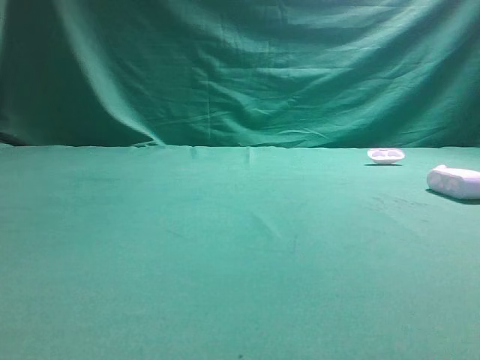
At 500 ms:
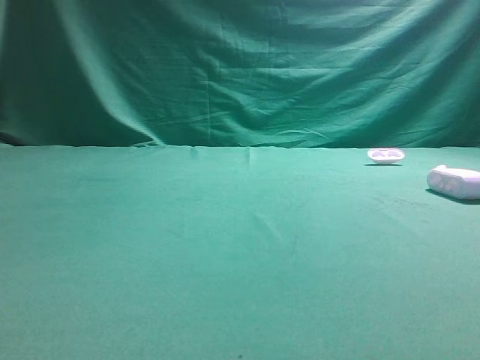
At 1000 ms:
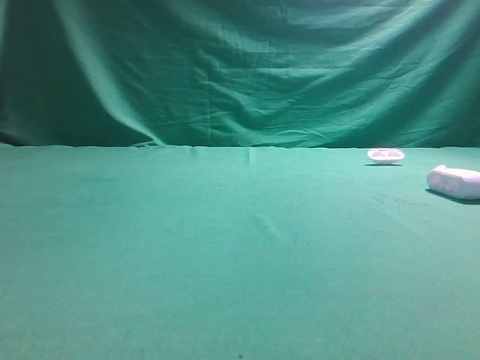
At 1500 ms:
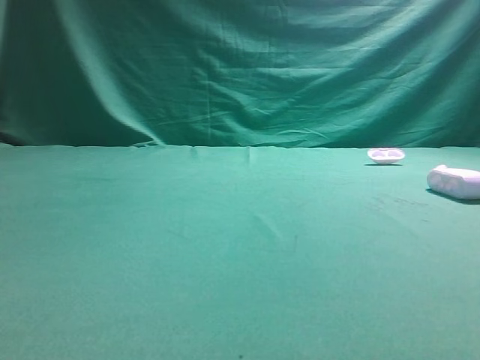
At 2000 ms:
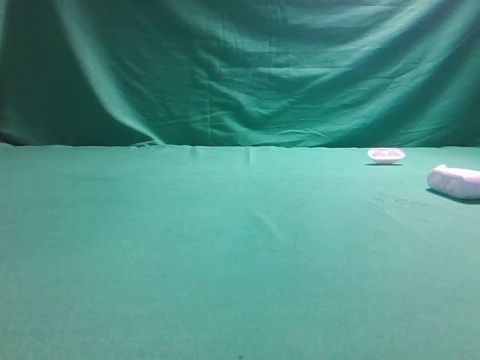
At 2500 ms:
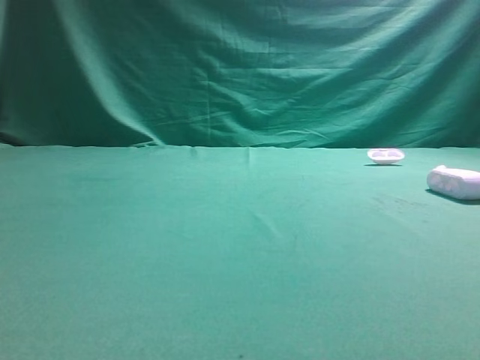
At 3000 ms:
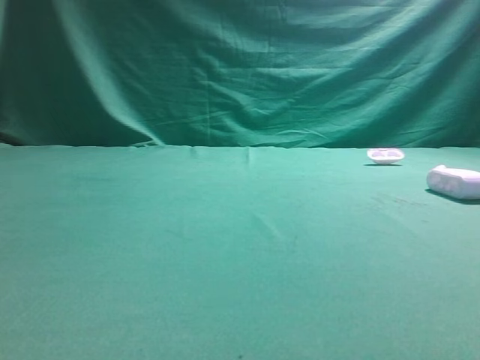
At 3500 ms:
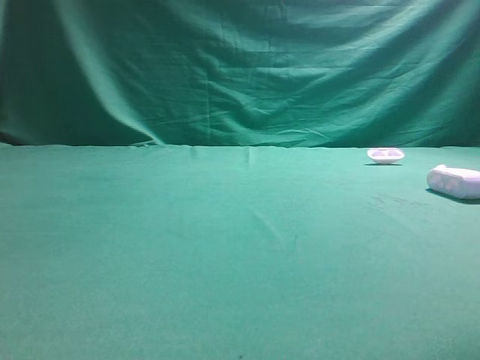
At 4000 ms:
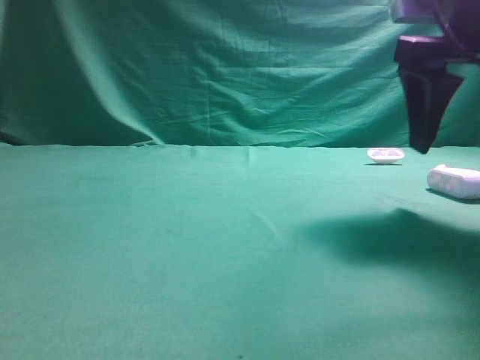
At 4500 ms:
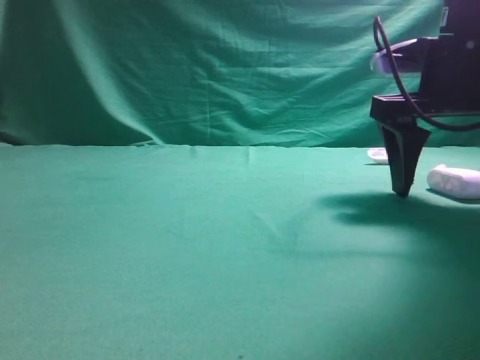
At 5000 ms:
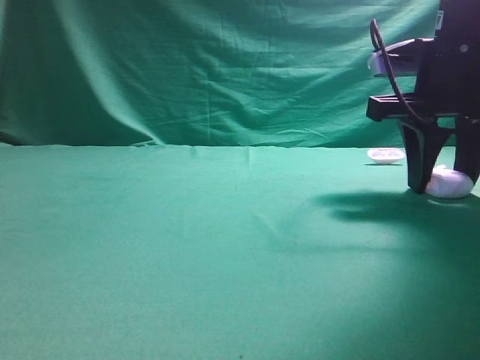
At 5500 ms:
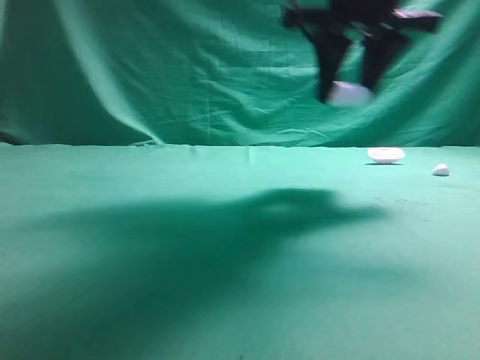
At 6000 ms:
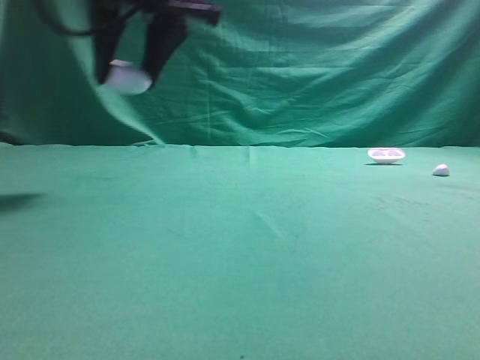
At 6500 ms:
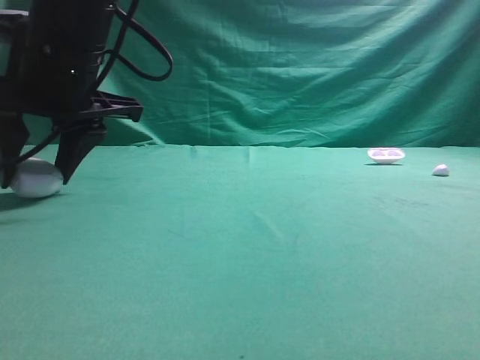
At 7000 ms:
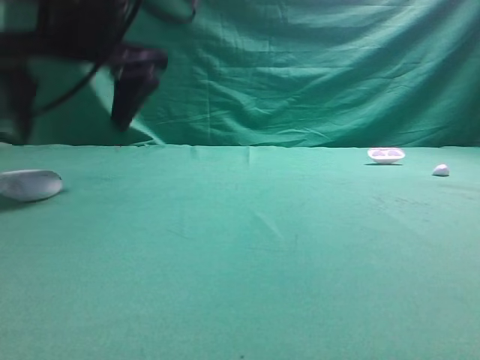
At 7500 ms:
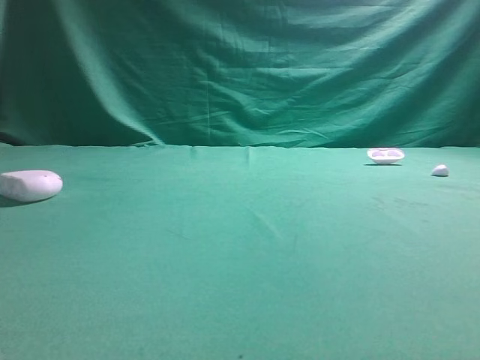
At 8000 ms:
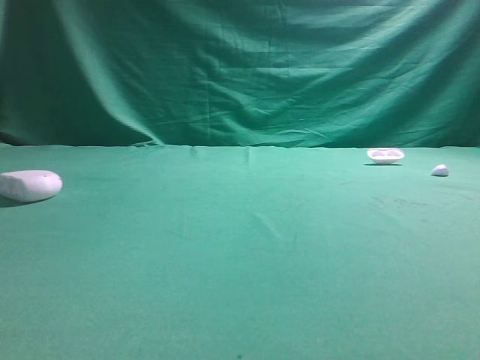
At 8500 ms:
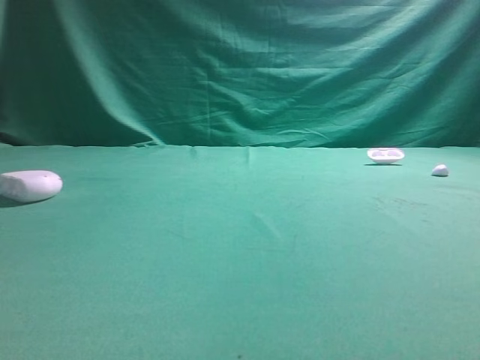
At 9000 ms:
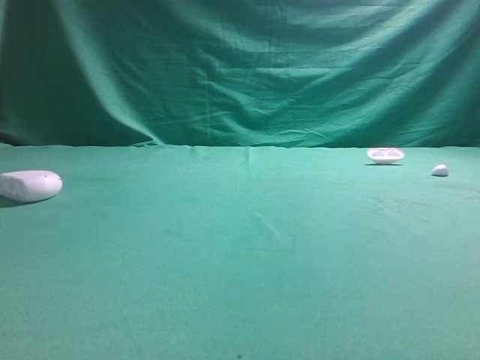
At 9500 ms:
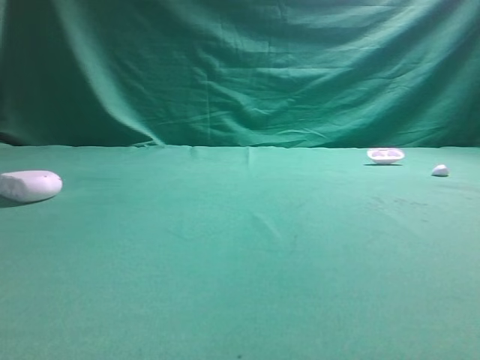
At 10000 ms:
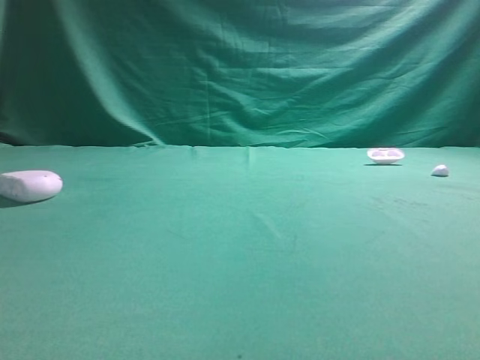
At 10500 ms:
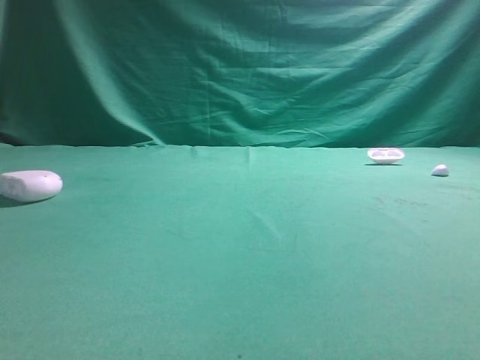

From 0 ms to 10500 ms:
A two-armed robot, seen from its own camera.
Step, from 0 ms to 5000 ms: Grasp the Bluetooth earphone case.
Step, from 5500 ms to 7000 ms: Place bluetooth earphone case on the left side of the table.

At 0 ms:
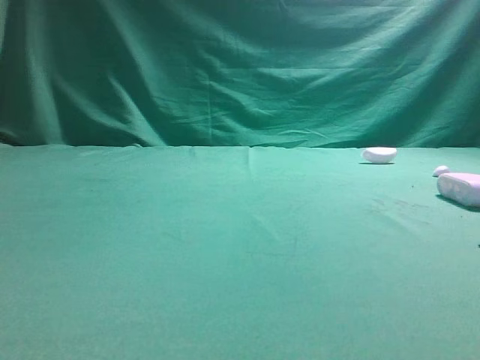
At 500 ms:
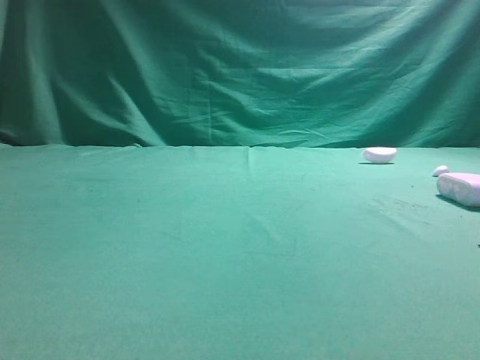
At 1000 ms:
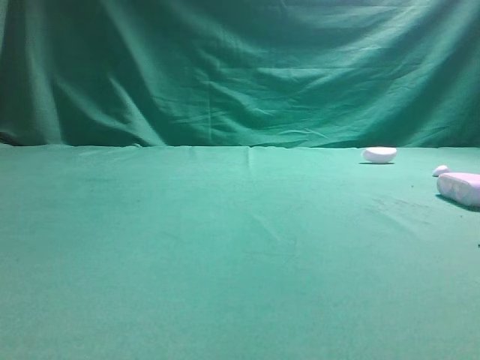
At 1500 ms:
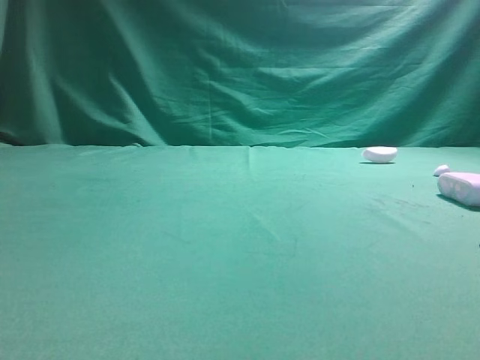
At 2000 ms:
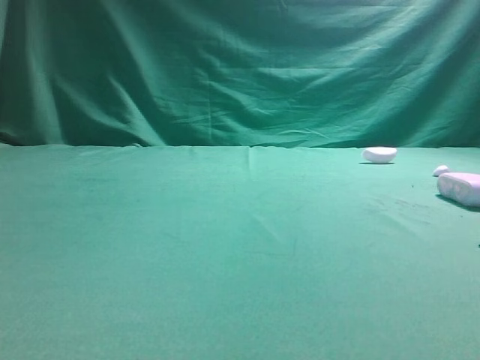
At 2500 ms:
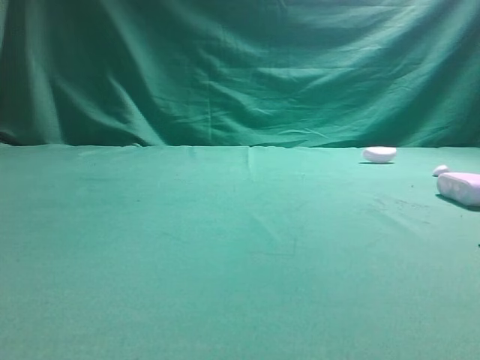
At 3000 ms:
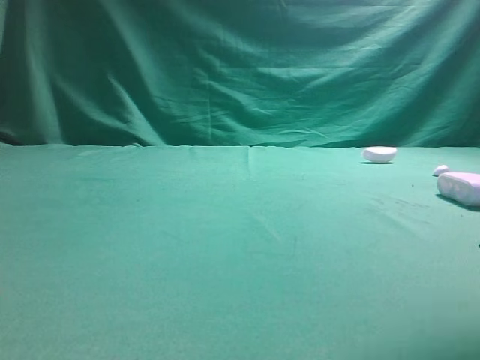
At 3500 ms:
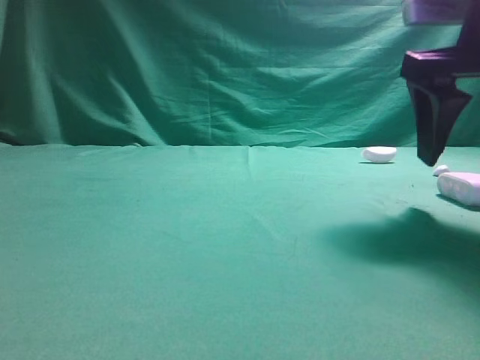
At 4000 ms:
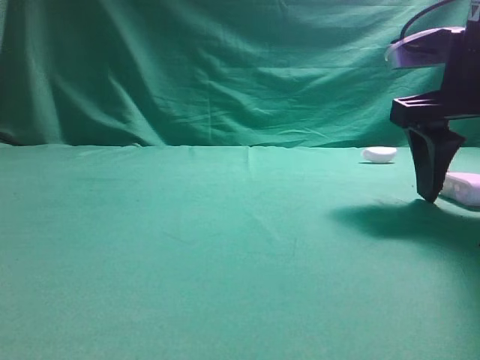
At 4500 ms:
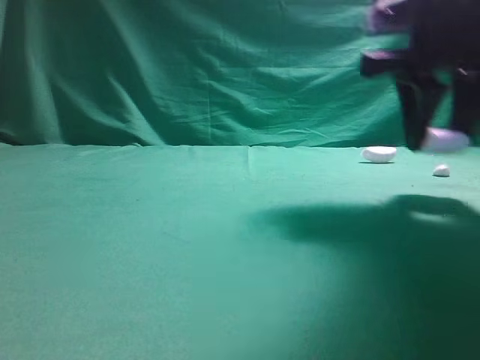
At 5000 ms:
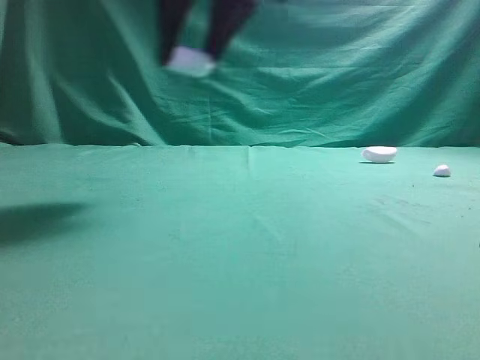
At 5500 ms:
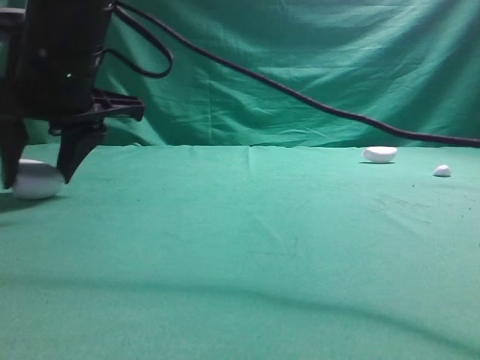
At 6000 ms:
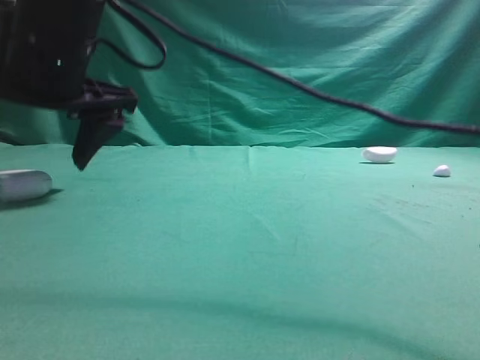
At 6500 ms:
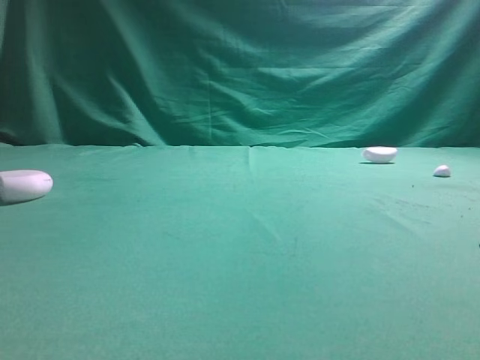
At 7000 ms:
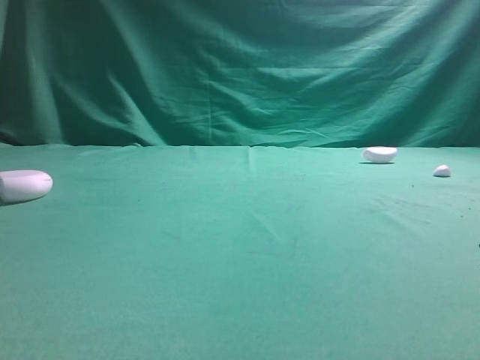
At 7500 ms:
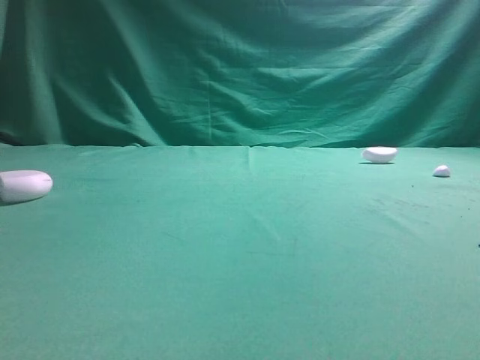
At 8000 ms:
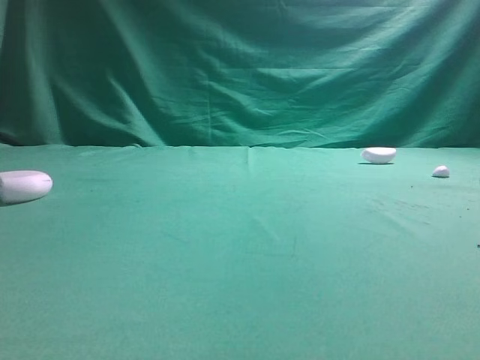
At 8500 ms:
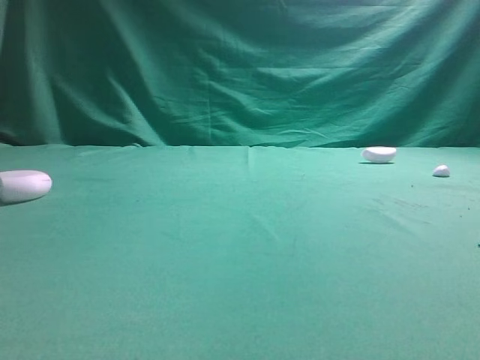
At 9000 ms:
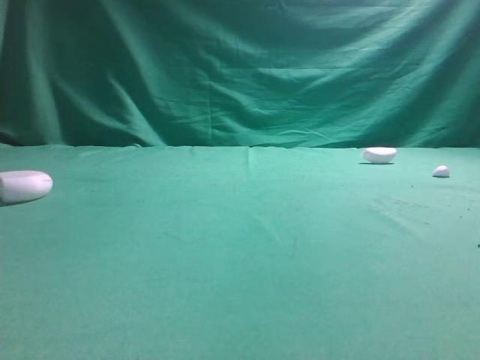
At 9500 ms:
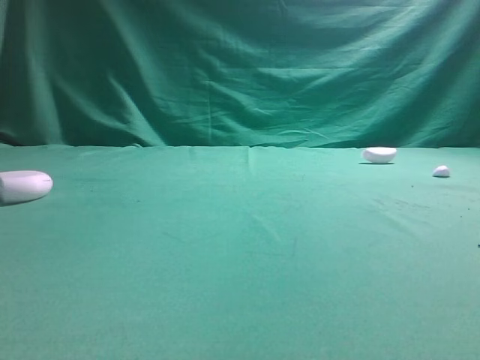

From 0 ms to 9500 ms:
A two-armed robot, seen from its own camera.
Step, from 0 ms to 3500 ms: Grasp the Bluetooth earphone case.
Step, from 4000 ms to 6000 ms: Place bluetooth earphone case on the left side of the table.
